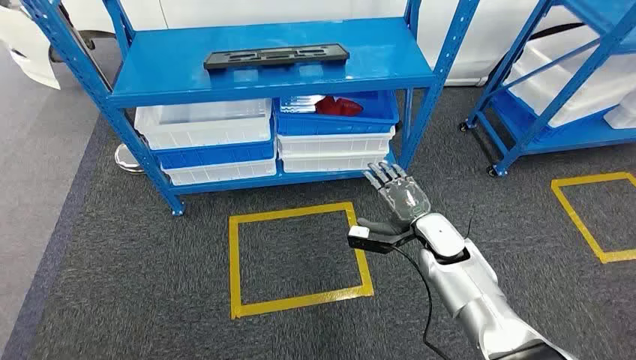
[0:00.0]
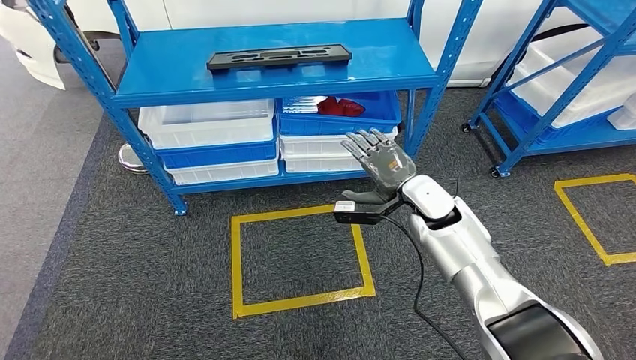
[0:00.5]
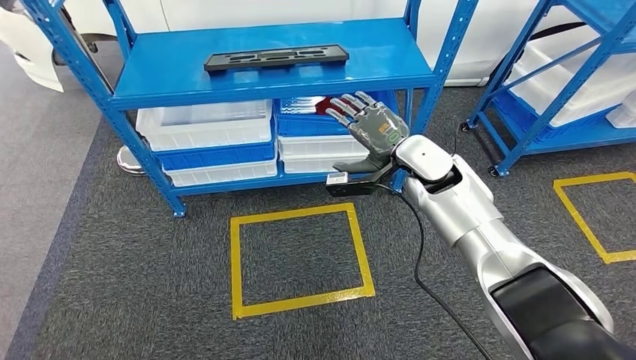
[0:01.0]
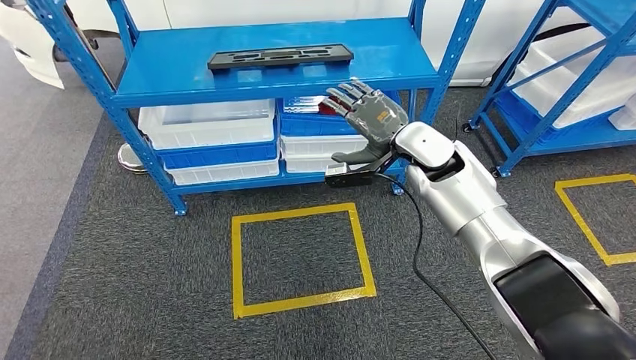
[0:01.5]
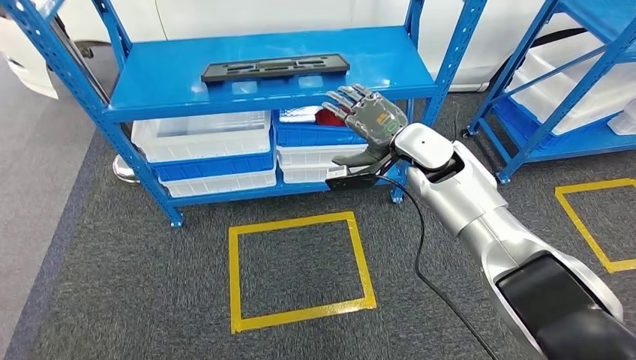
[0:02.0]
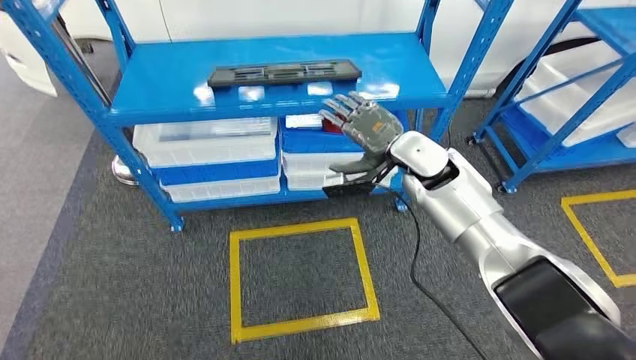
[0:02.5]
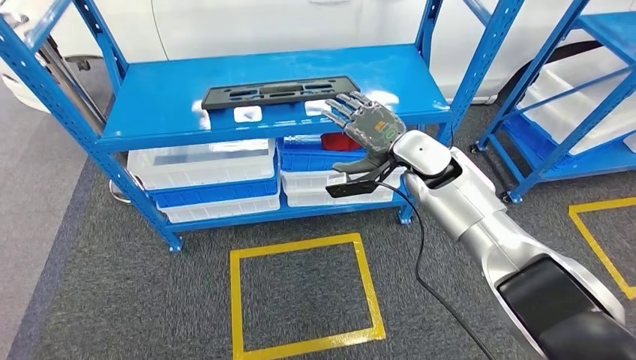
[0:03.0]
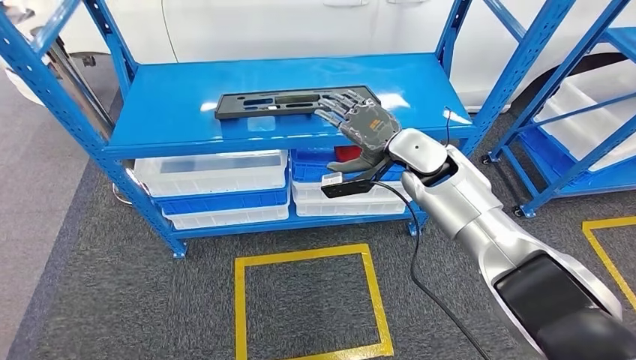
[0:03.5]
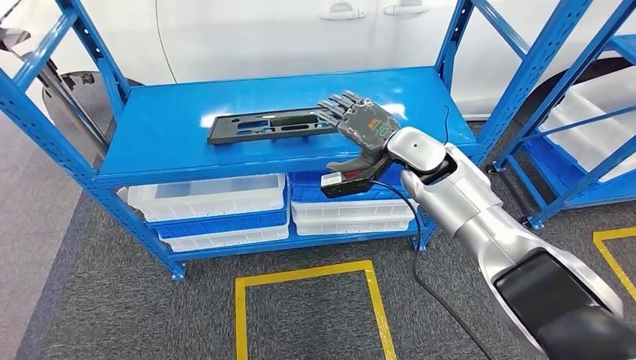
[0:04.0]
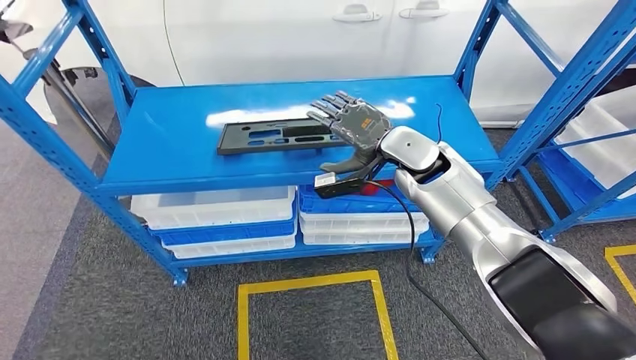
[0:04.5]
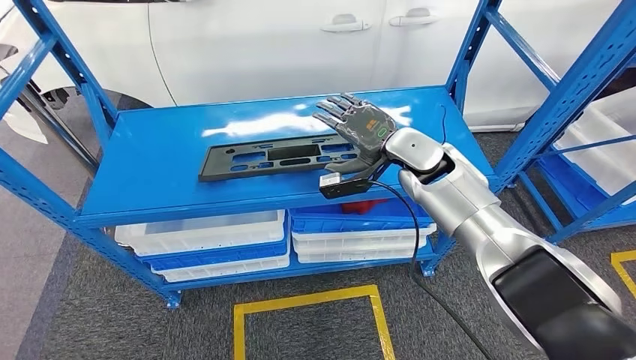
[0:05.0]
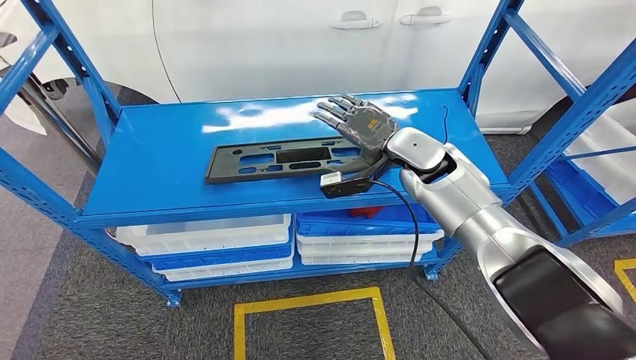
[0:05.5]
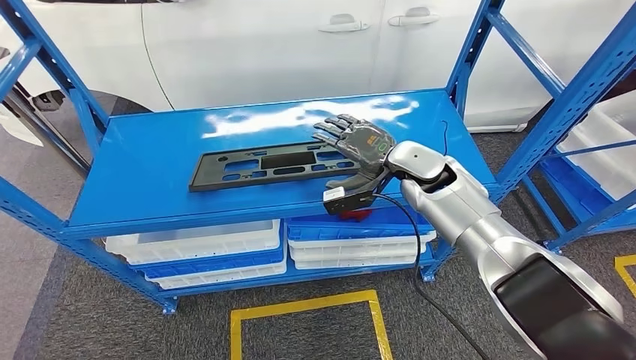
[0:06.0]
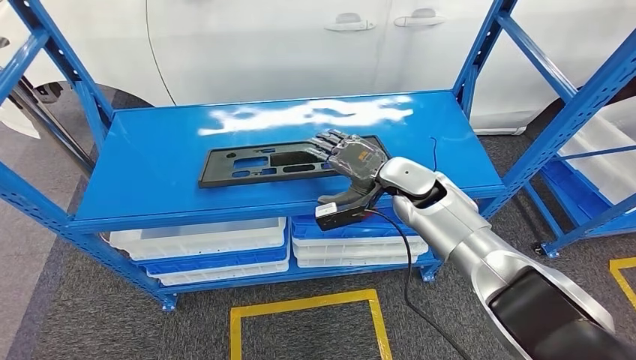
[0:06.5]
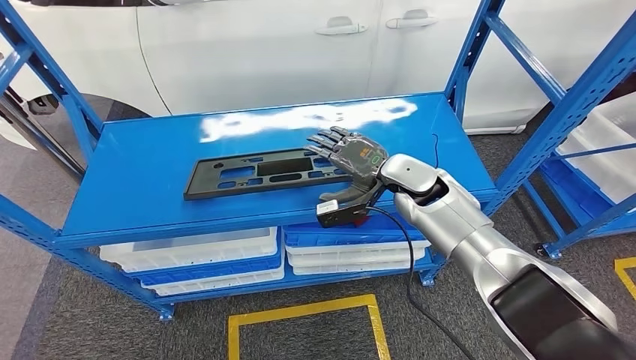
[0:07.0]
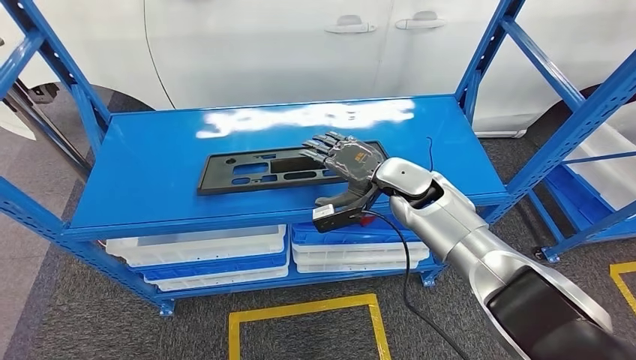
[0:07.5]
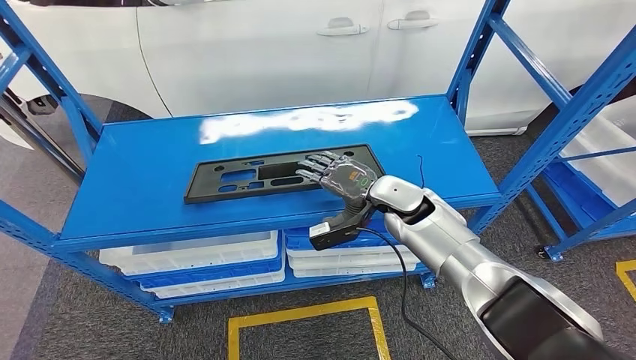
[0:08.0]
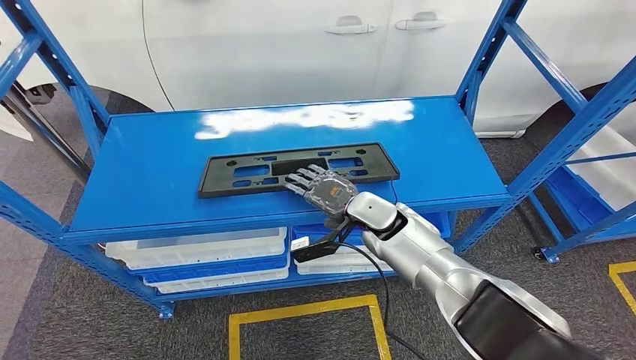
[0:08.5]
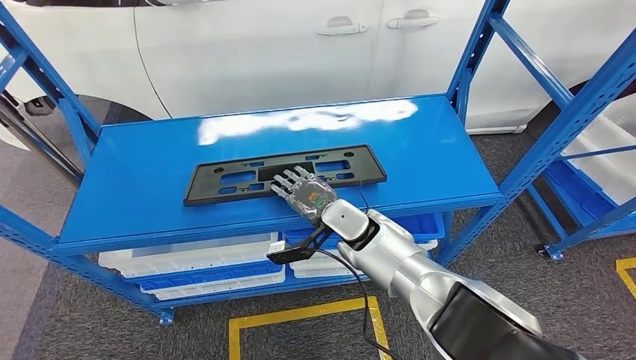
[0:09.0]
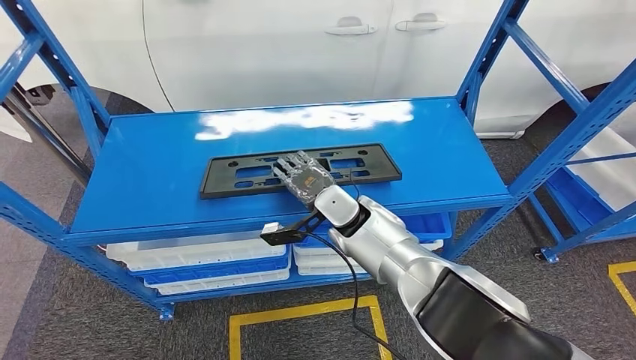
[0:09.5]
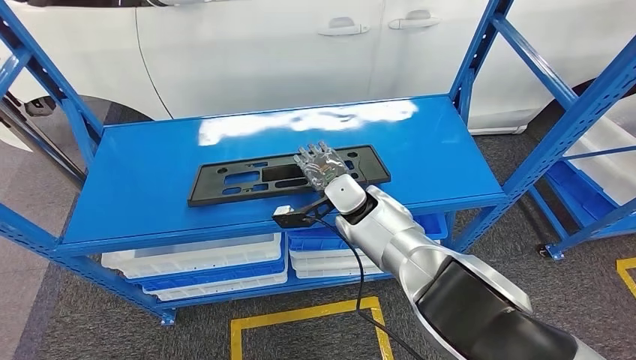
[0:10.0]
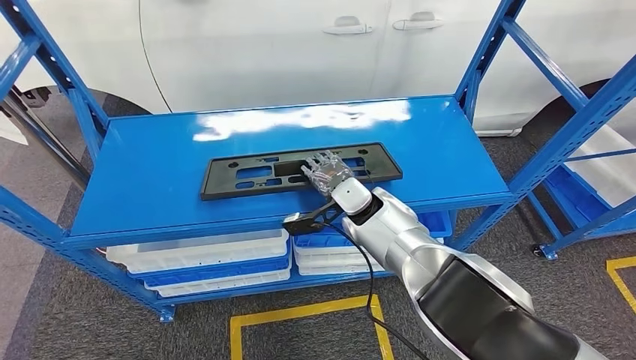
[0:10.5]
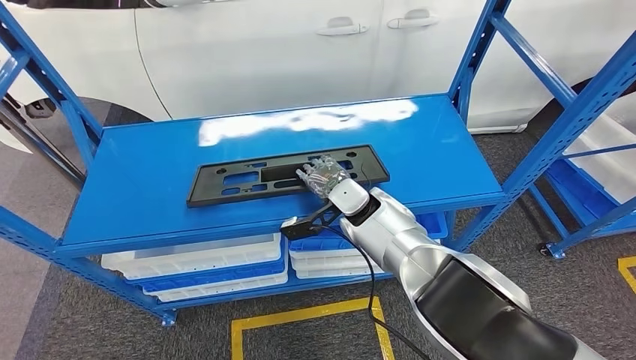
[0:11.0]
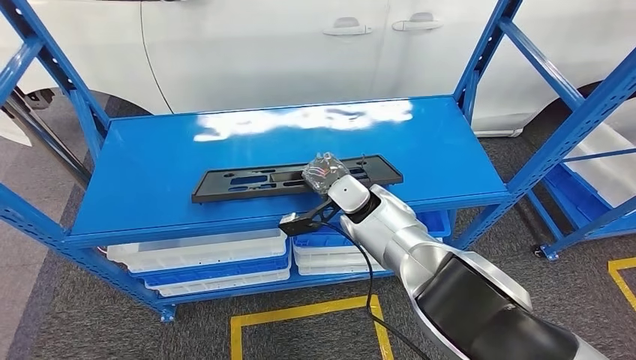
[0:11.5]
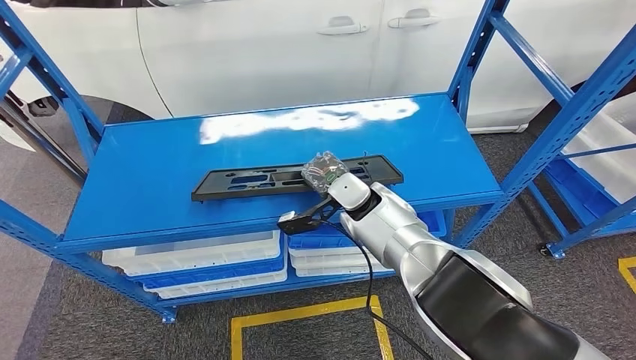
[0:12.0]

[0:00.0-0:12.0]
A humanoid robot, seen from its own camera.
0:10.0 to 0:12.0: The hands stay close to where they were, moving slightly.

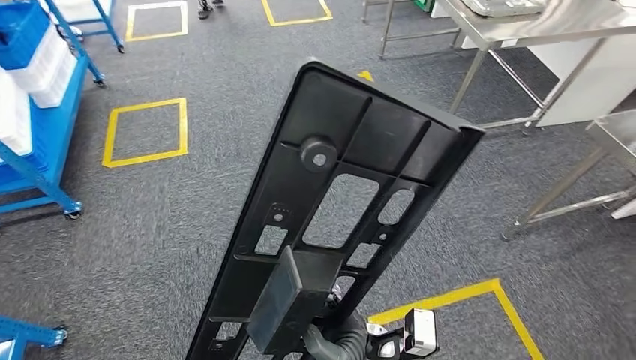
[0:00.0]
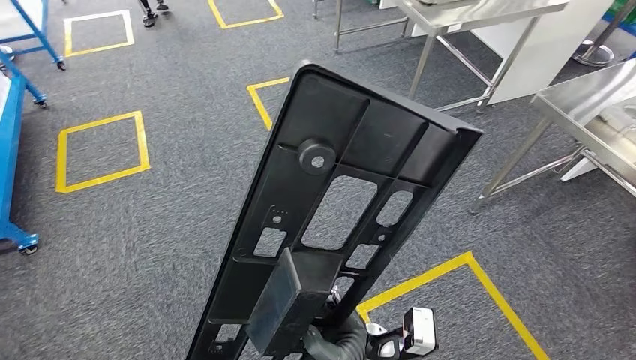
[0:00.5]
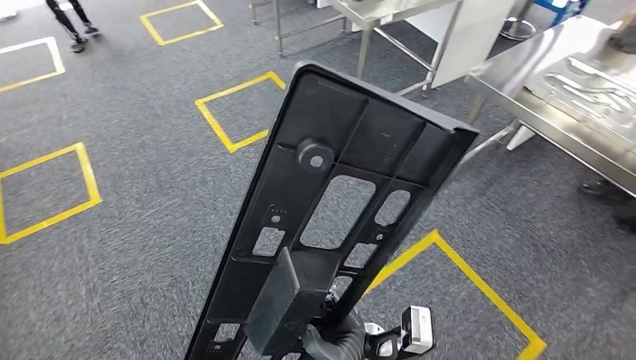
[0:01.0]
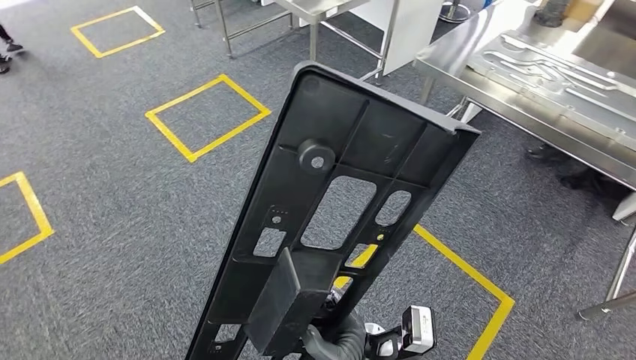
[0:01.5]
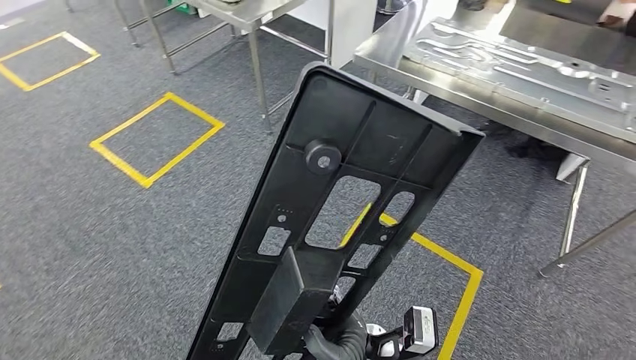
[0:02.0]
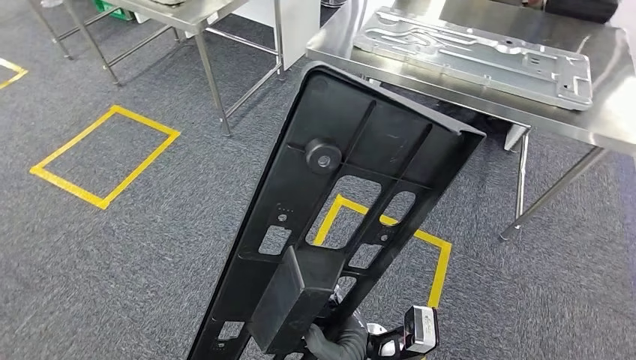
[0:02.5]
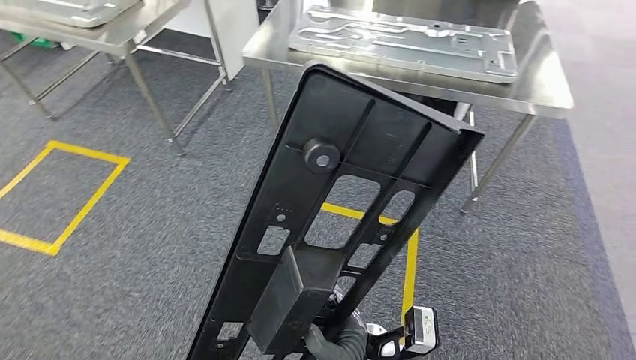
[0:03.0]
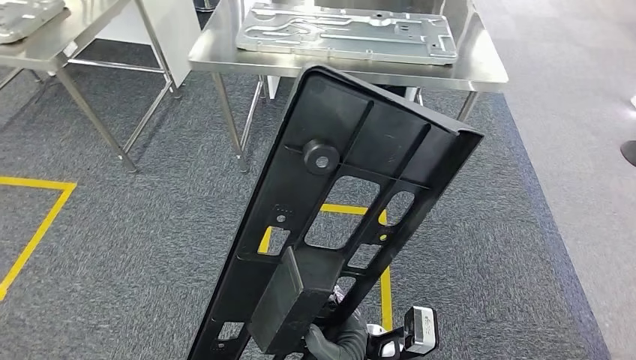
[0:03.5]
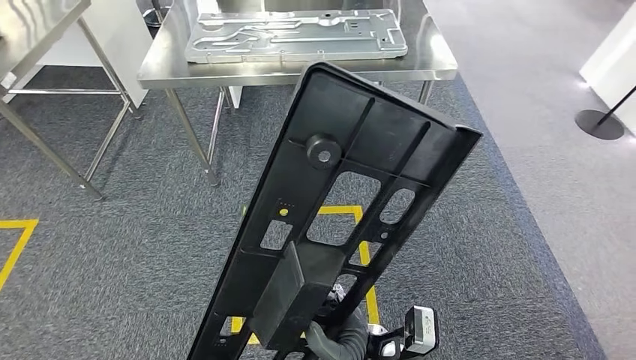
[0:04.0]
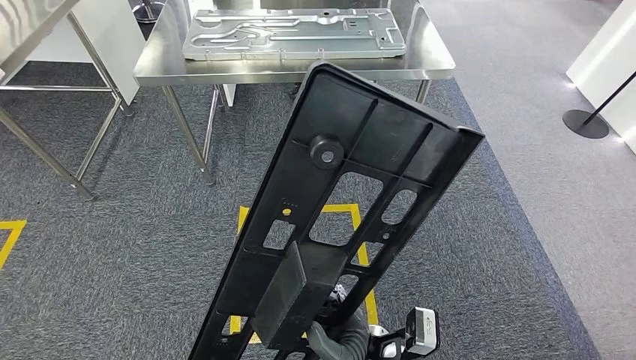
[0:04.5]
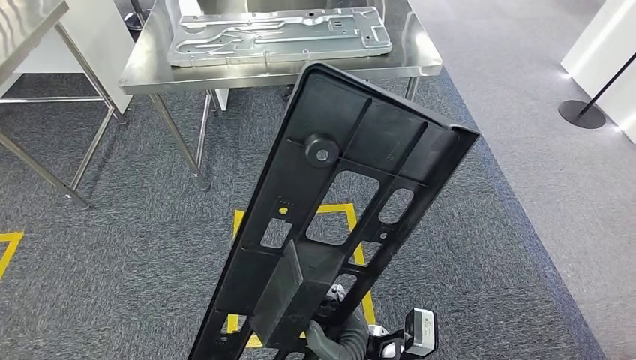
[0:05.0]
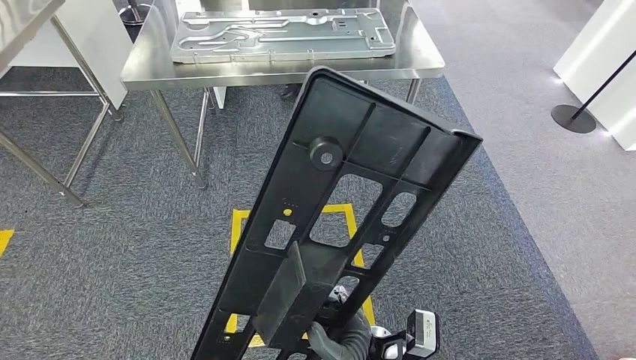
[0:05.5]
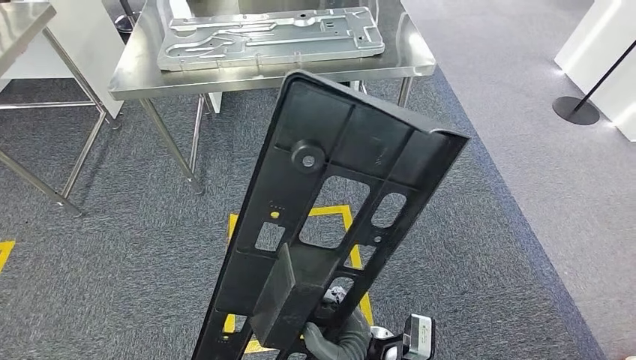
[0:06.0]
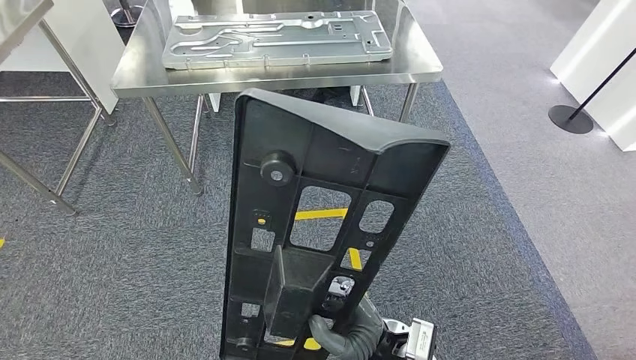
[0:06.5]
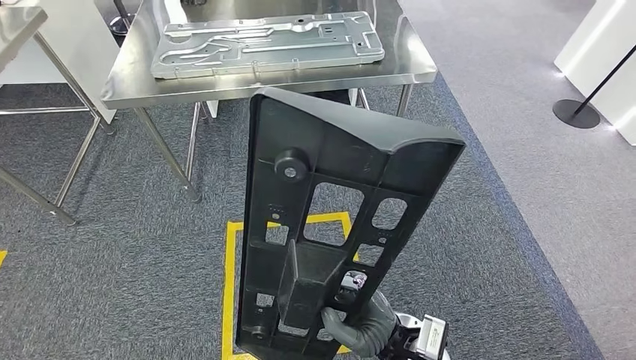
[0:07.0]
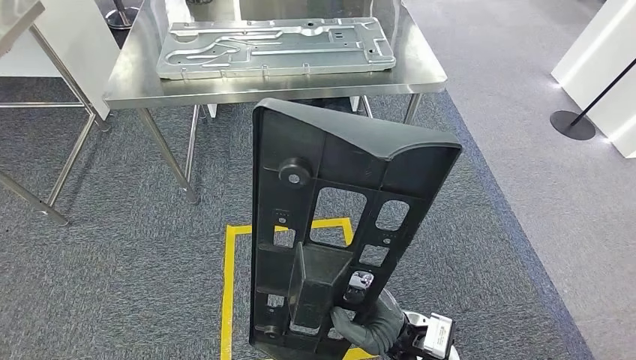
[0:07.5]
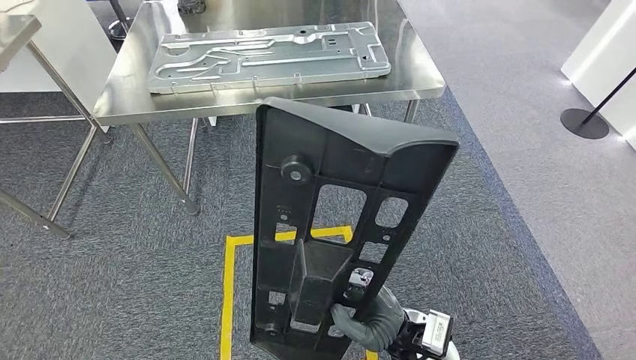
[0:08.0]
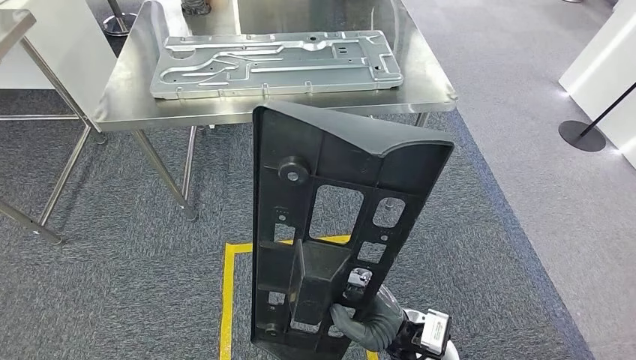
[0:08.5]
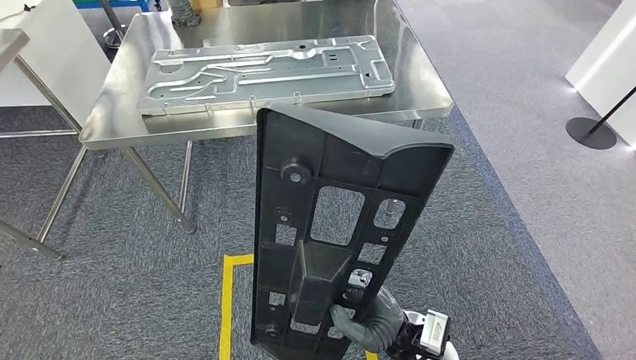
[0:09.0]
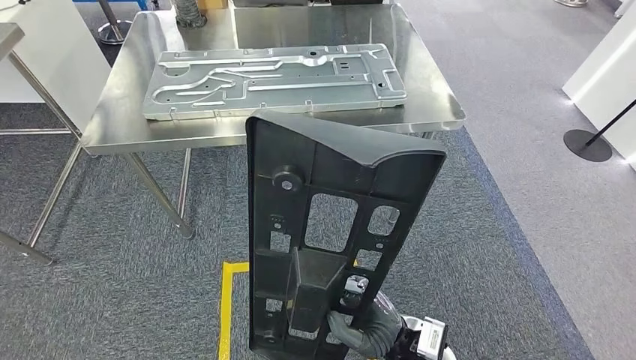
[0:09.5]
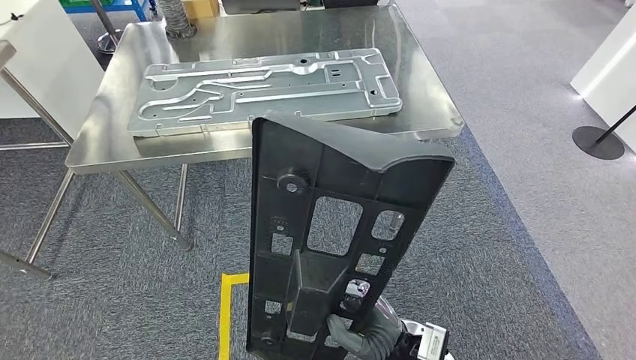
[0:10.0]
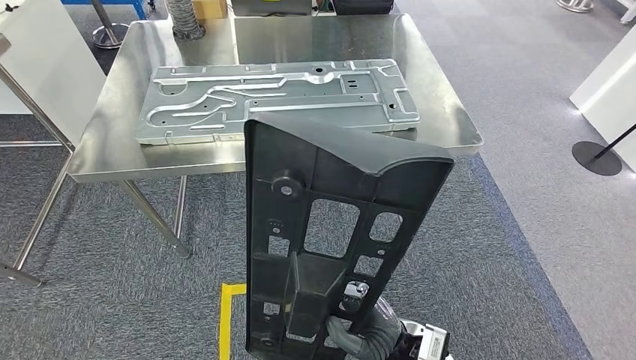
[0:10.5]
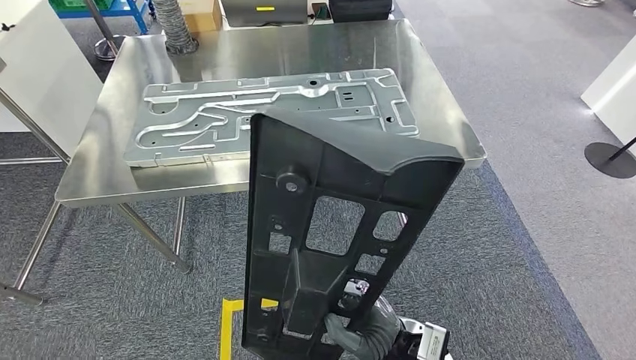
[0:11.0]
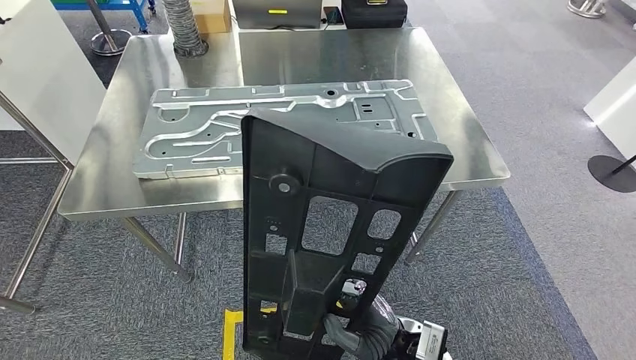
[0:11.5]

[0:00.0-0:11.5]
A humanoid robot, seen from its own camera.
Step, 0:00.0 to 0:04.5: Move the large material to the workbench.
